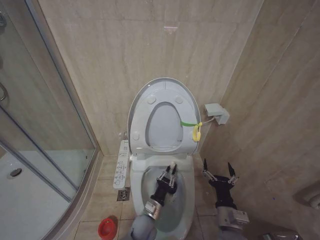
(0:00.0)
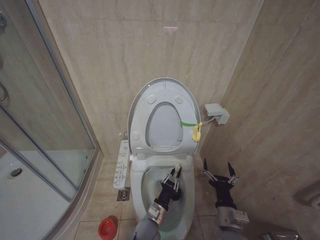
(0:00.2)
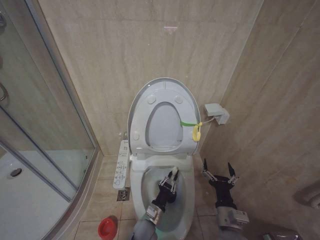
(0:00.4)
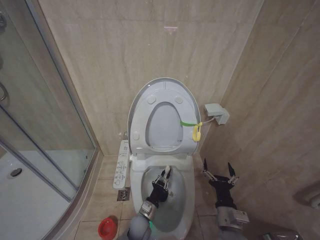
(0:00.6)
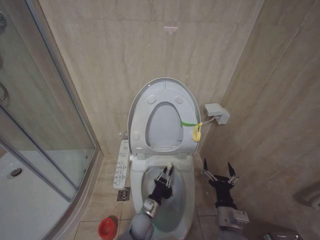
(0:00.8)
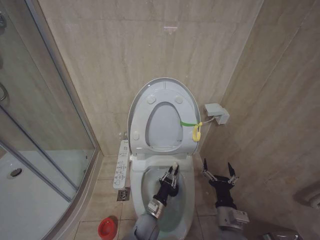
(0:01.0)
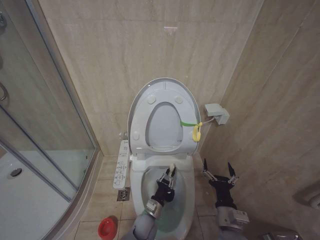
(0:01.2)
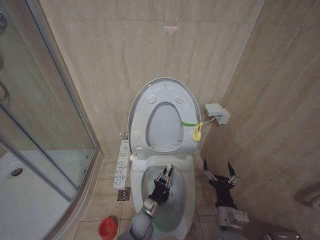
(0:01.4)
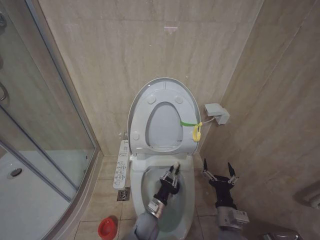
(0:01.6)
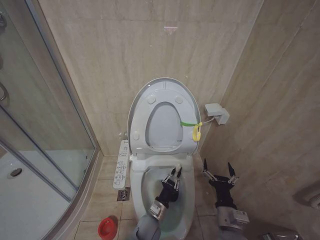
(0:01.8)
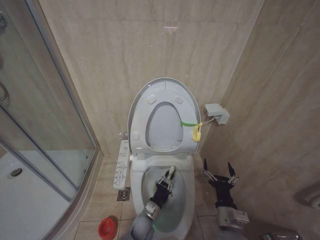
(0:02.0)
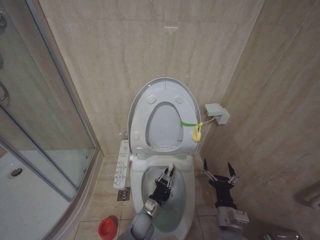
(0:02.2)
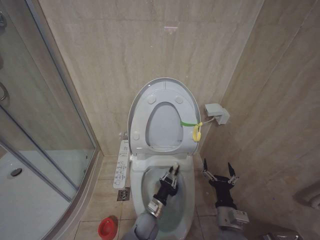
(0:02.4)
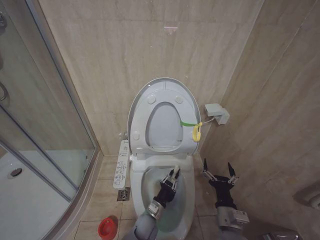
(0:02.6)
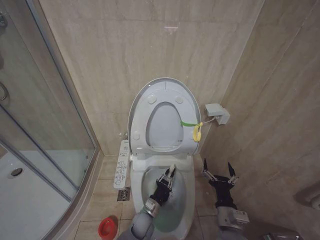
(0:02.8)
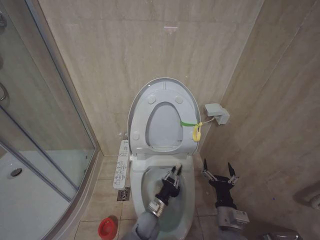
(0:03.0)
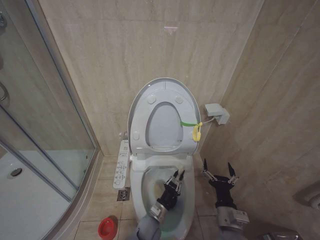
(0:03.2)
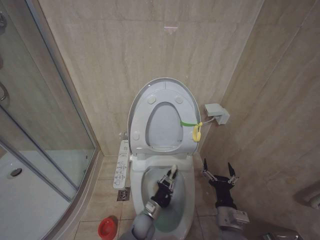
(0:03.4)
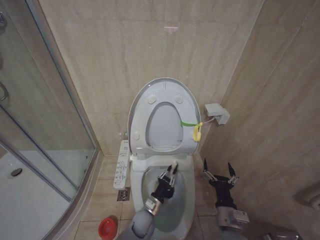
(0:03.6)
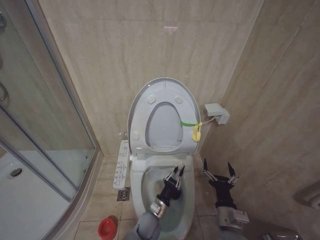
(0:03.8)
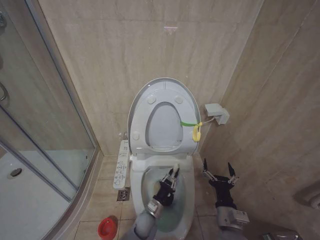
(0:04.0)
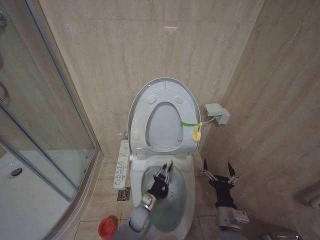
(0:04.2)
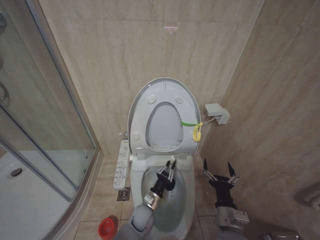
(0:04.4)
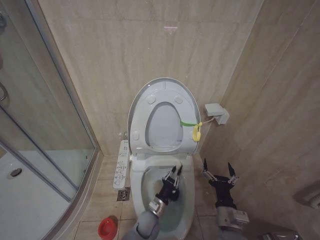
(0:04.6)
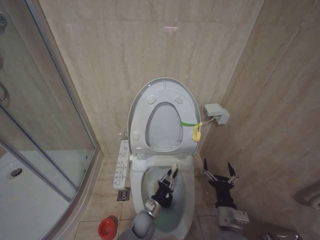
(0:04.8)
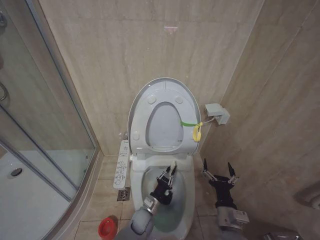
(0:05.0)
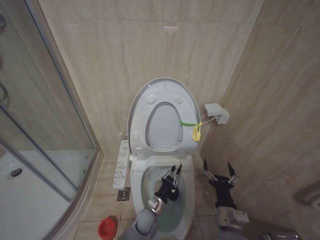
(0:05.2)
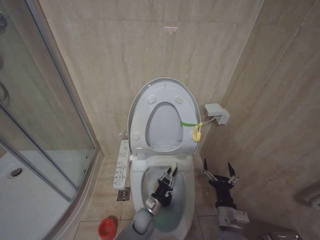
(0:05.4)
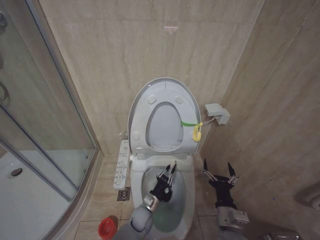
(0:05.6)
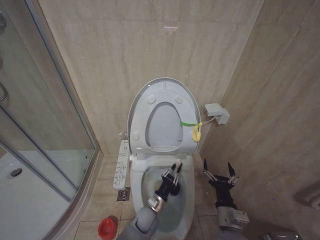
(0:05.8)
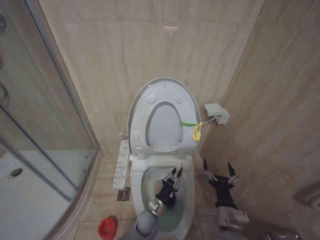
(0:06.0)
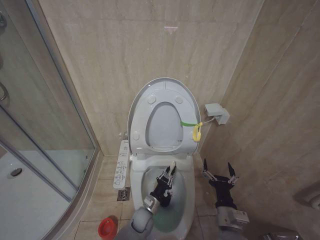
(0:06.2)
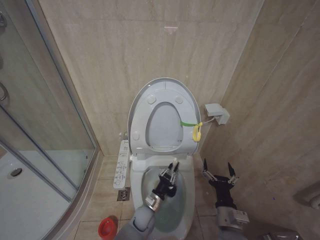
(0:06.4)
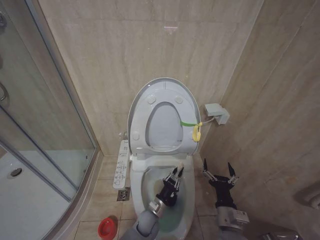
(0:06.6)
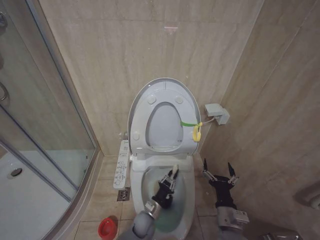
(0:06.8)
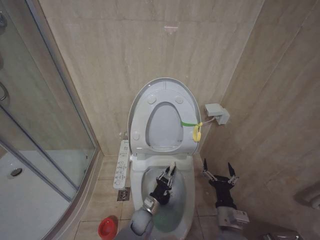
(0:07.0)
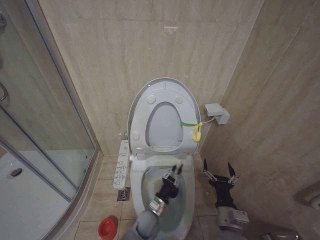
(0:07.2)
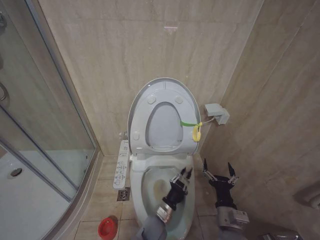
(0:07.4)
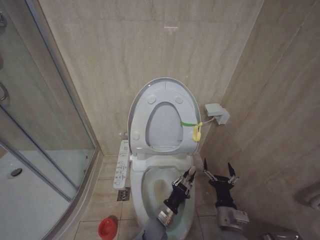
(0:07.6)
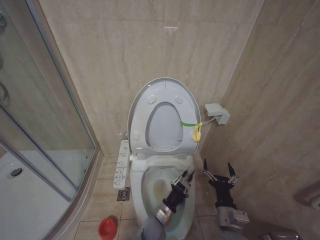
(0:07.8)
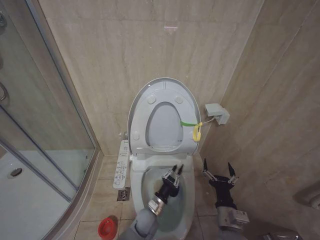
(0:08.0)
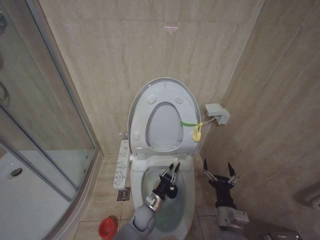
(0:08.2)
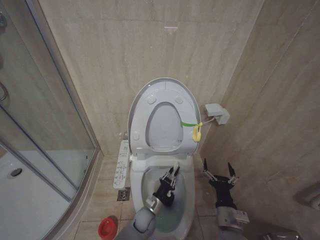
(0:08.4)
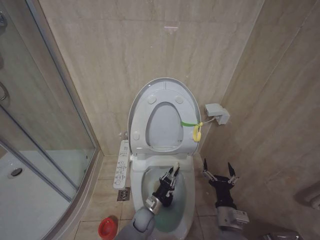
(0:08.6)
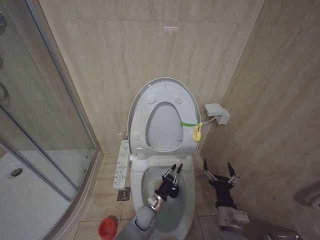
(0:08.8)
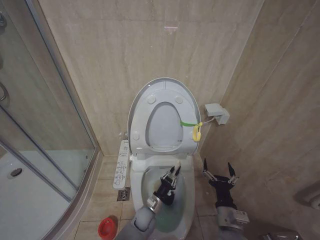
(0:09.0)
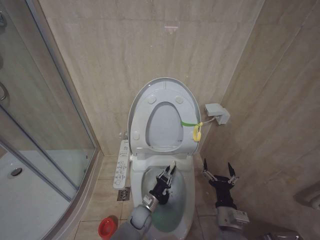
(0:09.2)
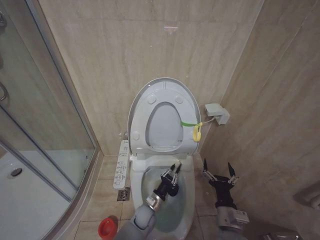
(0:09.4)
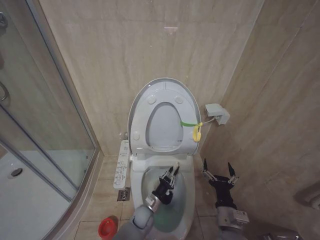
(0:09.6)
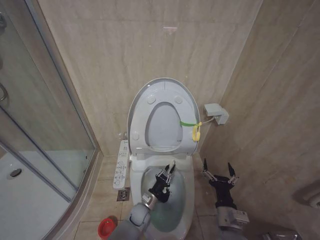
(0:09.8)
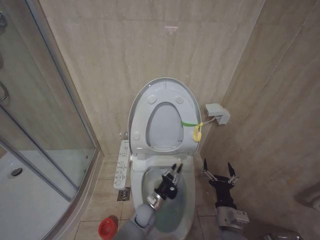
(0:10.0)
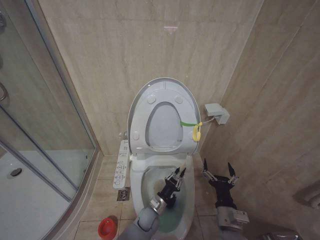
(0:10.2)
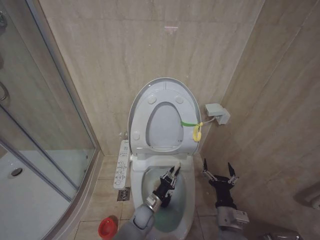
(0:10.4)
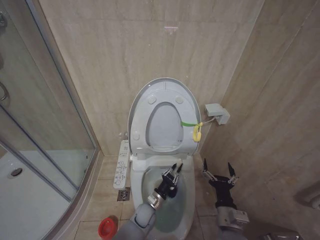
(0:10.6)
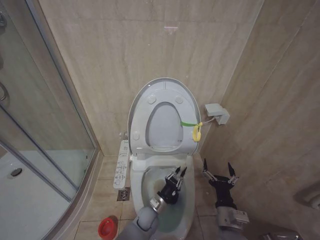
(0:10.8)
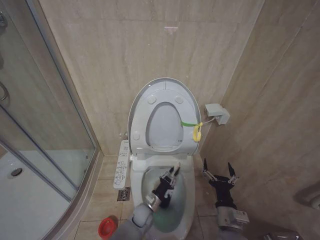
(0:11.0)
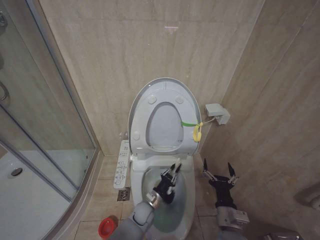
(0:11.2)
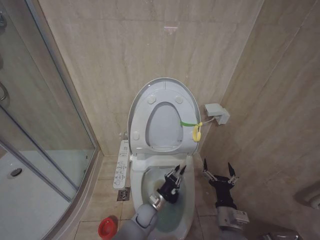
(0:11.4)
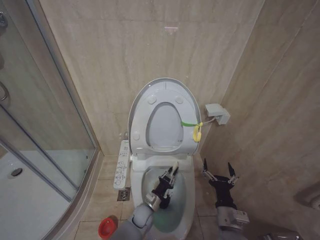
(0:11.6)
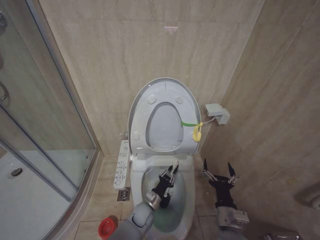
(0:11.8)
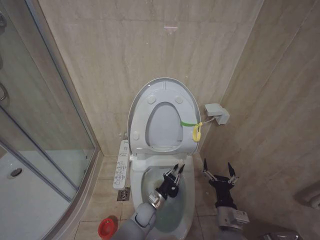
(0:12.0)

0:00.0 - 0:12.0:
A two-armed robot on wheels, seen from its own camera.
Task of the whole recording: Open the toilet lid, clean the toilet bowl with a toilet brush, close the toilet lid, and flush.
0:03.0 - 0:06.0: The grippers move only a little.
0:06.0 - 0:07.6: The left gripper changes place by about 5 cm.
0:07.6 - 0:09.0: The left gripper moves forward, some 5 cm.
0:10.4 - 0:12.0: The grippers move only a little.

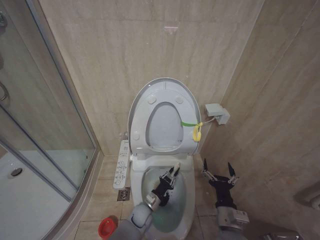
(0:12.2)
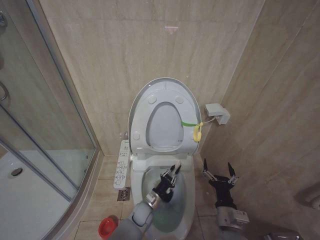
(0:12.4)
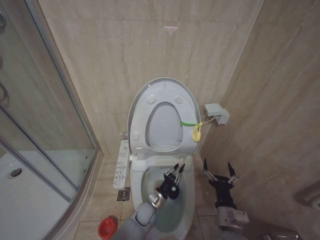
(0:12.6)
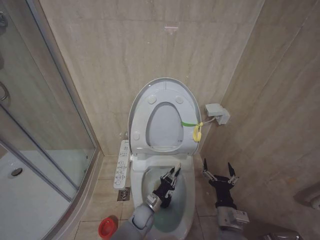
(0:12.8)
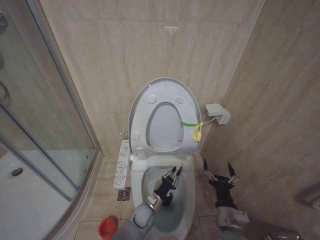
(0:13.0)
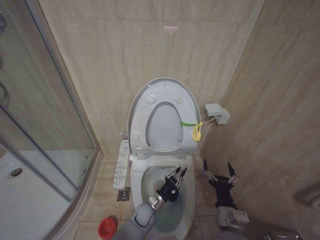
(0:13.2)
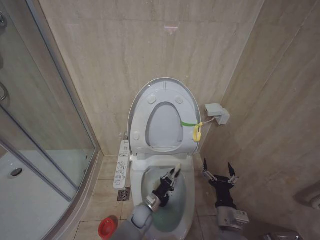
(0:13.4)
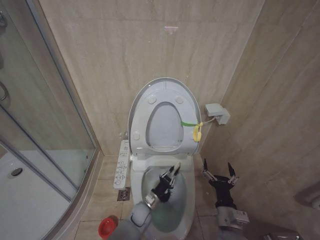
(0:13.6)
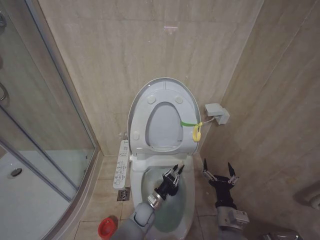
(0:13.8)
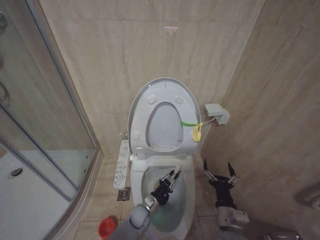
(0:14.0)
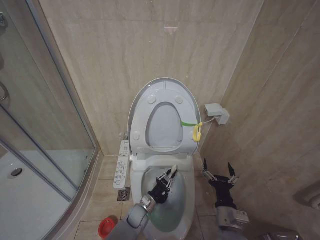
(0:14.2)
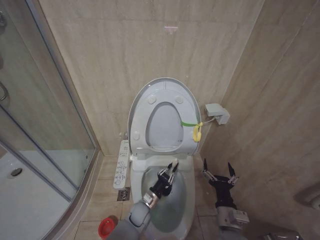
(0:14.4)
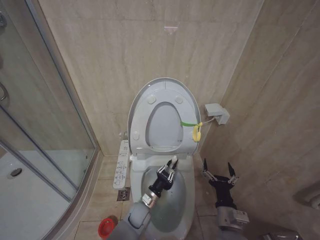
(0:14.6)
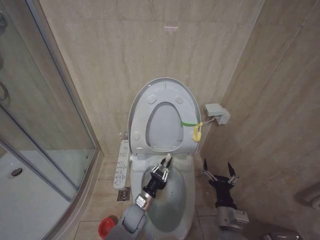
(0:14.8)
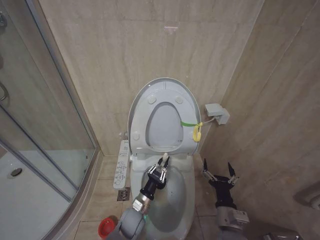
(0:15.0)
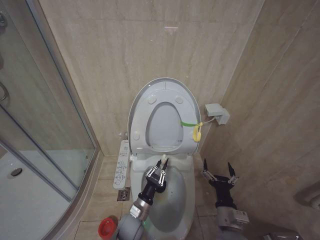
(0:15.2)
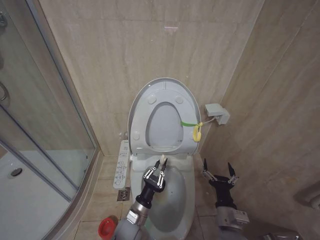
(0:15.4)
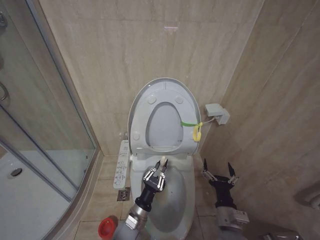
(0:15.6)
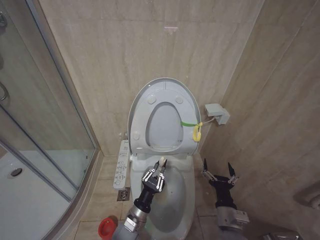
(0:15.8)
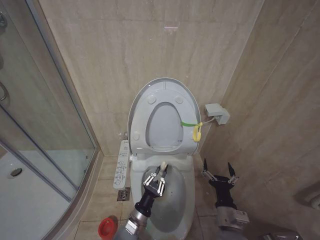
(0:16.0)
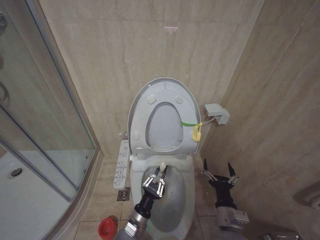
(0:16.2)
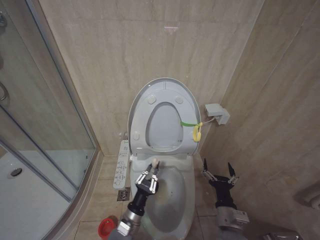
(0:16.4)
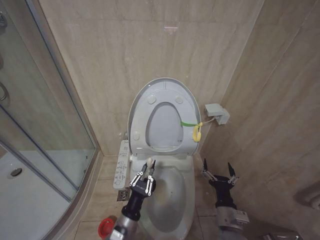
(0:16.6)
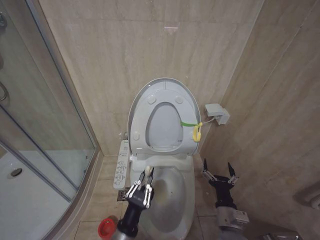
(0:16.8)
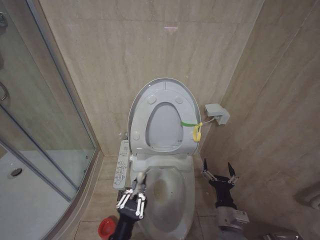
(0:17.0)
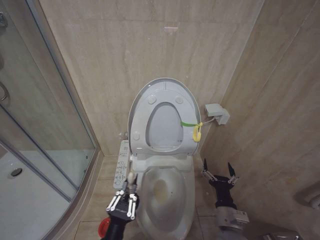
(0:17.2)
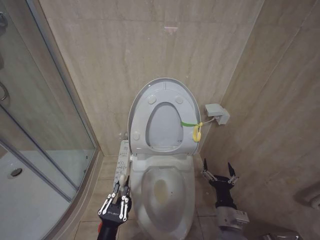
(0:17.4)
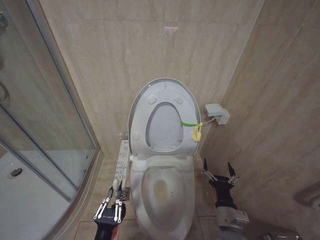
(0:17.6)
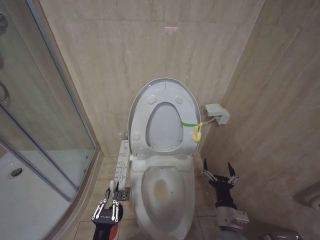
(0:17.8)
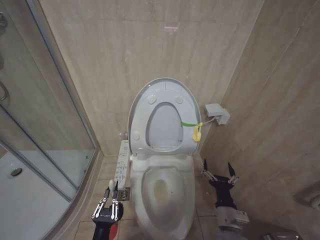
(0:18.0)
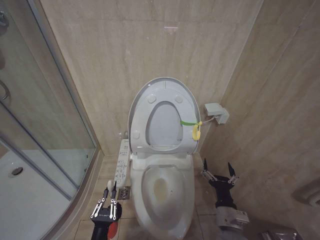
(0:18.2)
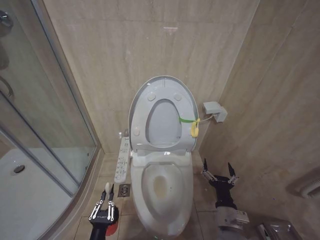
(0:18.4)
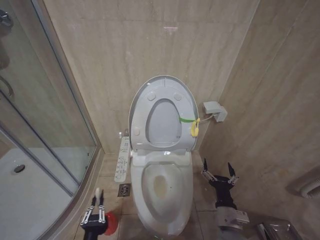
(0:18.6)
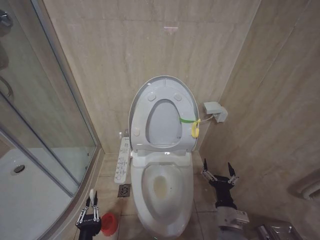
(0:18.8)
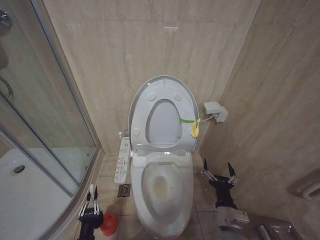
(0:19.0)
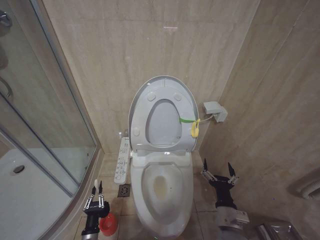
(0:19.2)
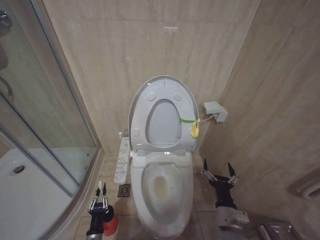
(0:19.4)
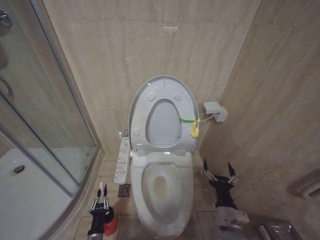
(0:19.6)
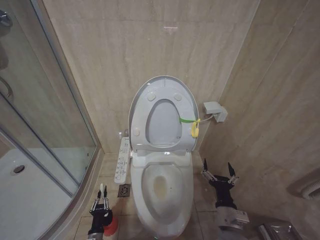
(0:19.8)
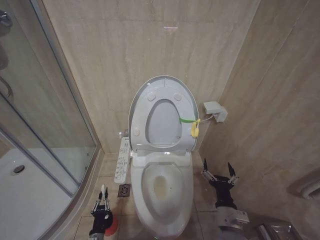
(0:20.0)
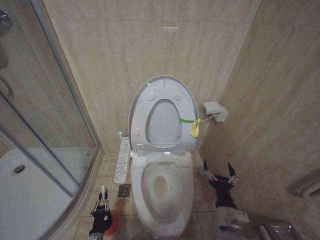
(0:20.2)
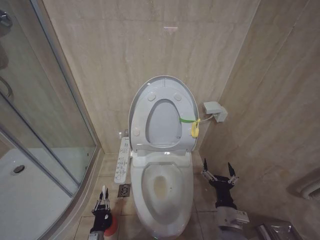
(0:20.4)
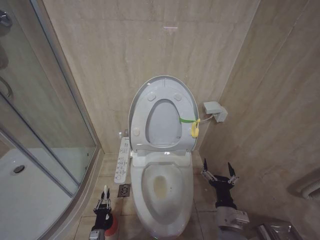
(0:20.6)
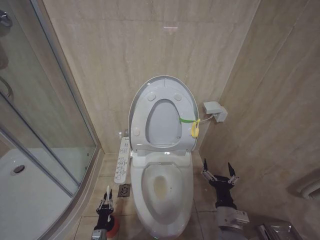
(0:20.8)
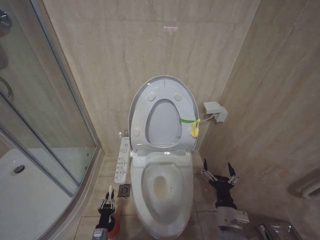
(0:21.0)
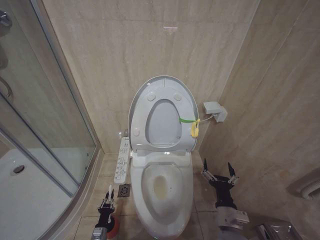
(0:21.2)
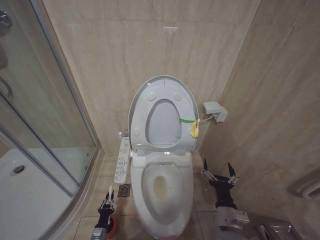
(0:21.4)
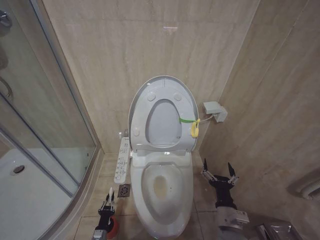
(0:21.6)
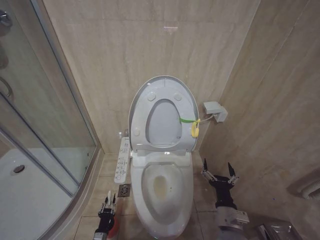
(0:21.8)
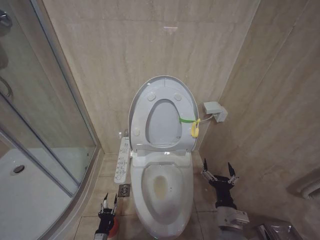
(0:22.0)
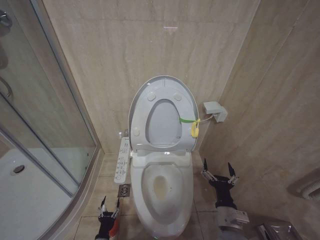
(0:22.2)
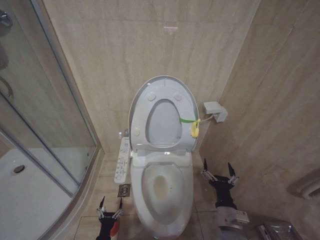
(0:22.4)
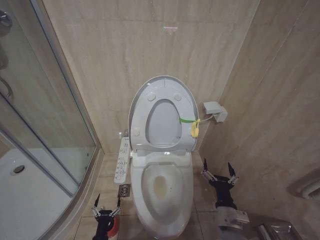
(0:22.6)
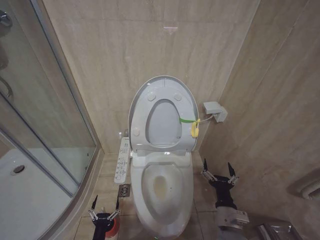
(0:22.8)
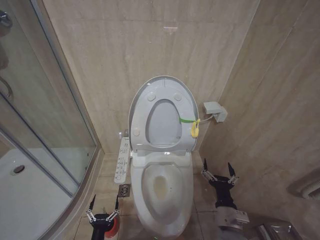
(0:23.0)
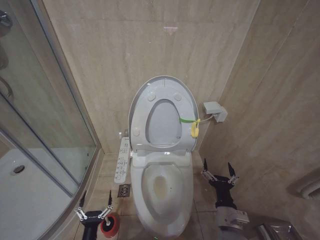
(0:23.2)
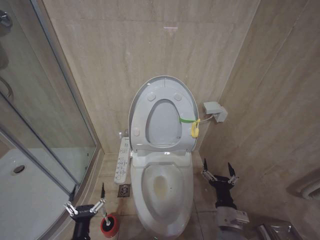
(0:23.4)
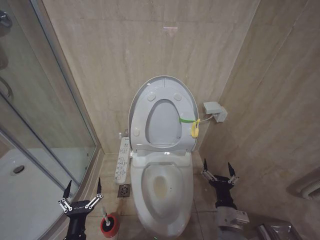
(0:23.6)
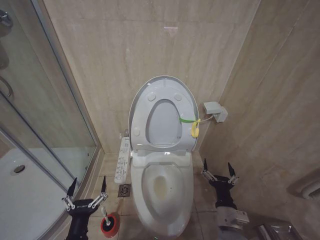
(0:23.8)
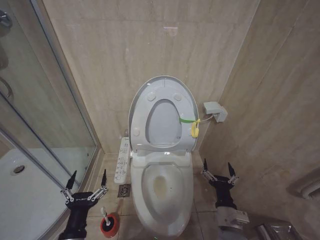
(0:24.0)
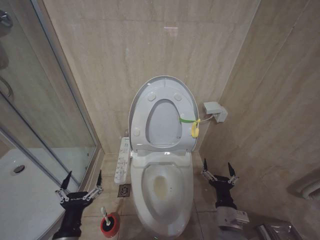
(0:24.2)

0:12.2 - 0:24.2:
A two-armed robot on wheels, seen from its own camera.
Task of the whole recording: Open the toilet lid, clean the toilet bowl with a toilet brush, close the toilet lid, and flush.
0:13.8 - 0:15.2: The left gripper heads upward and backward, covering roughly 10 cm.
0:15.2 - 0:16.6: The left gripper shifts some 5 cm backward.
0:16.6 - 0:18.2: The left gripper travels backward and to the left by roughly 10 cm.
0:18.2 - 0:19.8: The left gripper travels downward and forward by some 20 cm.
0:19.8 - 0:21.2: The left gripper is displaced downward by some 5 cm.
0:21.2 - 0:22.6: The left gripper travels backward and upward by some 10 cm, and opens.
0:22.6 - 0:24.2: The left gripper travels upward by about 30 cm.
